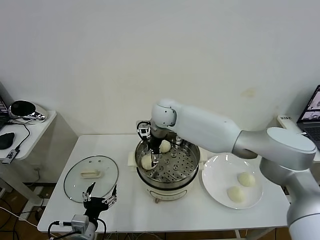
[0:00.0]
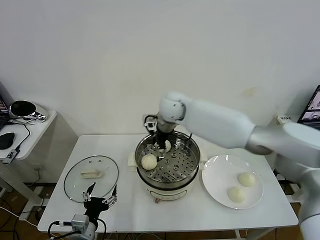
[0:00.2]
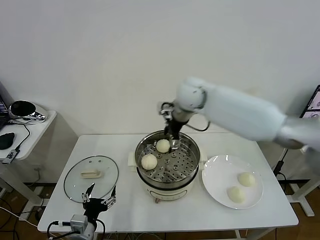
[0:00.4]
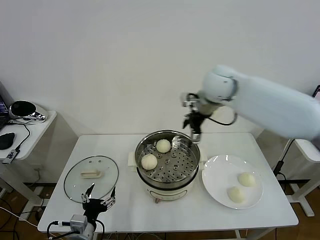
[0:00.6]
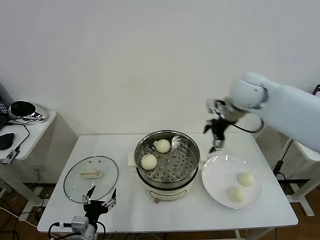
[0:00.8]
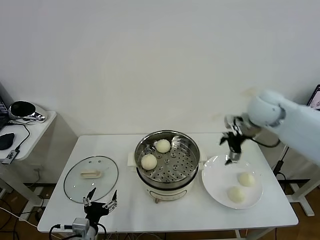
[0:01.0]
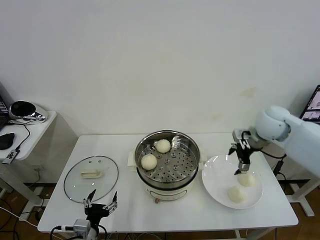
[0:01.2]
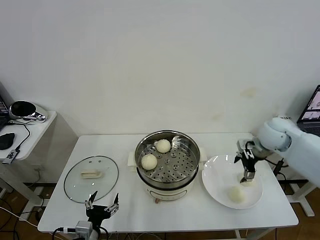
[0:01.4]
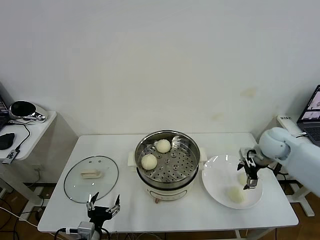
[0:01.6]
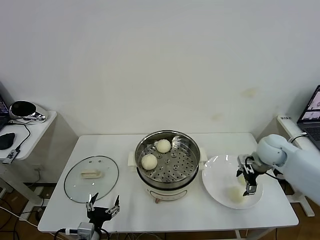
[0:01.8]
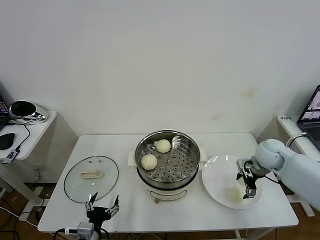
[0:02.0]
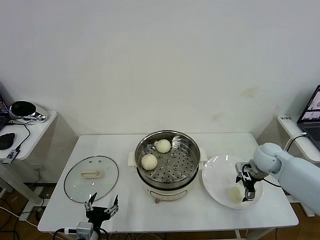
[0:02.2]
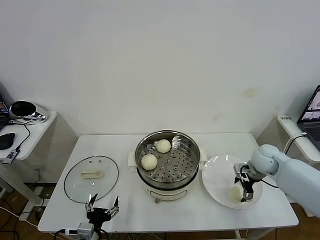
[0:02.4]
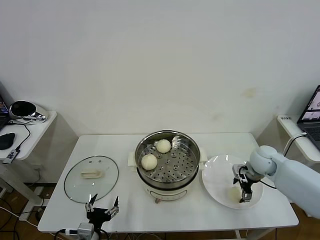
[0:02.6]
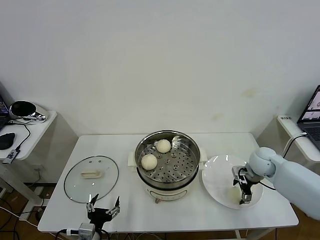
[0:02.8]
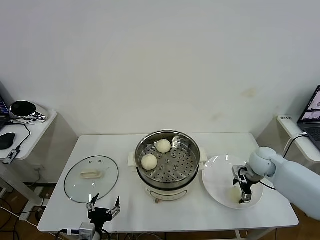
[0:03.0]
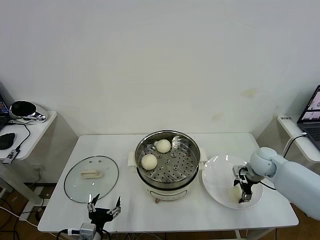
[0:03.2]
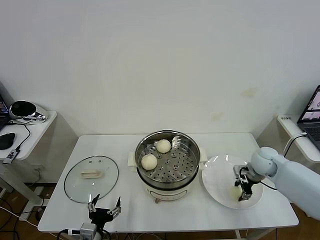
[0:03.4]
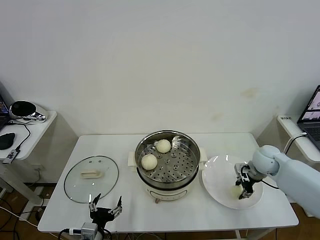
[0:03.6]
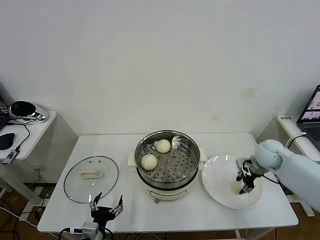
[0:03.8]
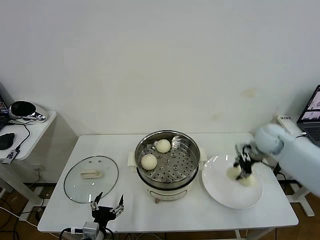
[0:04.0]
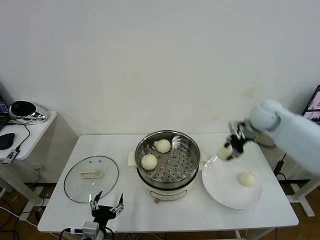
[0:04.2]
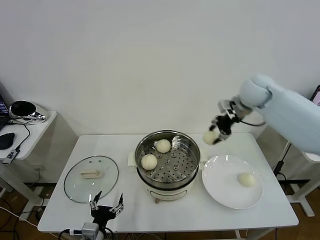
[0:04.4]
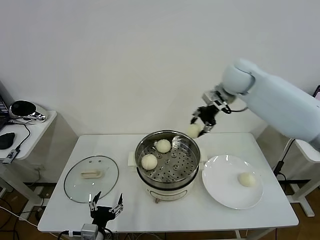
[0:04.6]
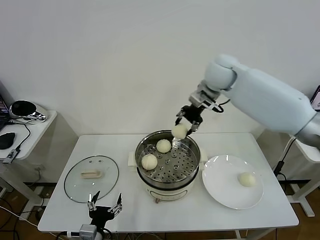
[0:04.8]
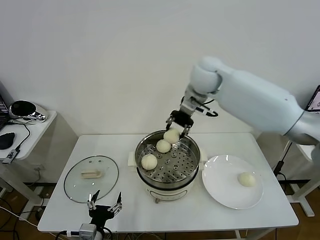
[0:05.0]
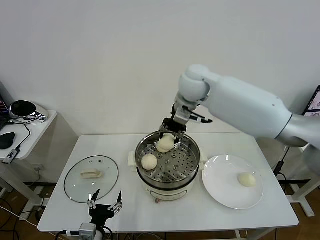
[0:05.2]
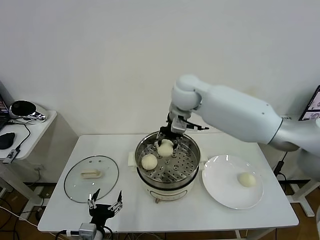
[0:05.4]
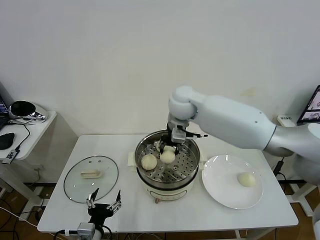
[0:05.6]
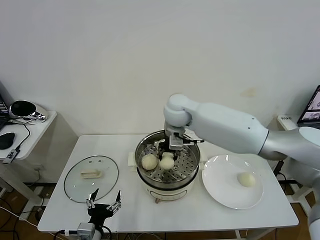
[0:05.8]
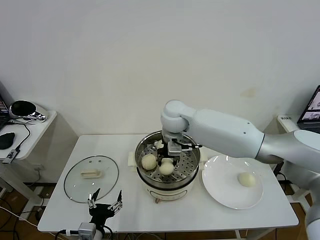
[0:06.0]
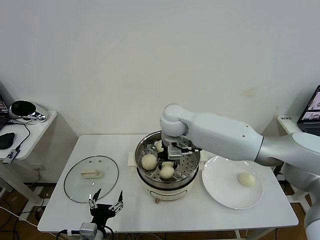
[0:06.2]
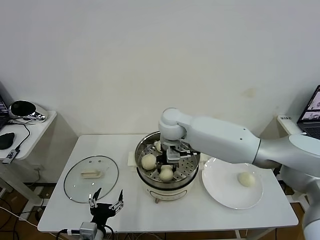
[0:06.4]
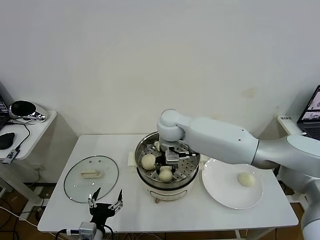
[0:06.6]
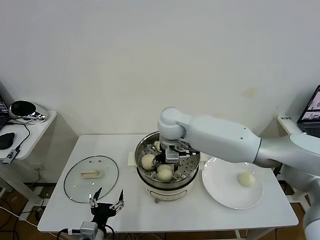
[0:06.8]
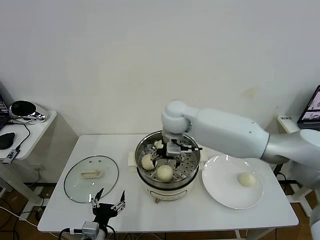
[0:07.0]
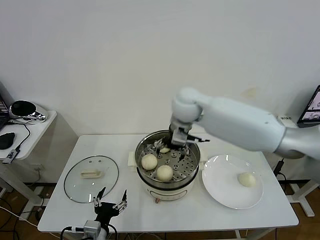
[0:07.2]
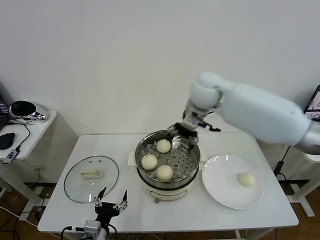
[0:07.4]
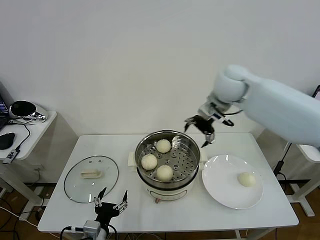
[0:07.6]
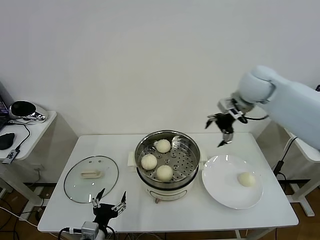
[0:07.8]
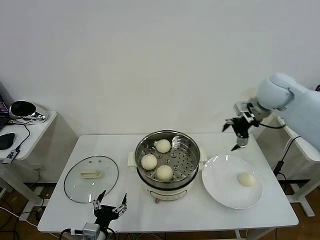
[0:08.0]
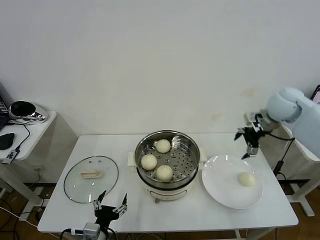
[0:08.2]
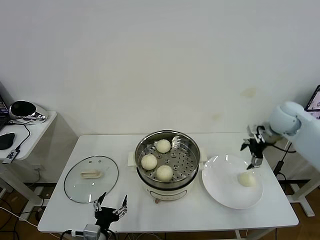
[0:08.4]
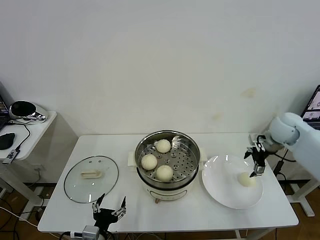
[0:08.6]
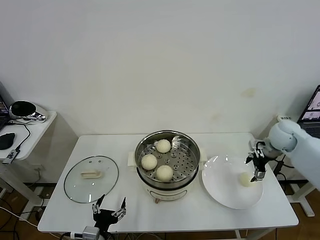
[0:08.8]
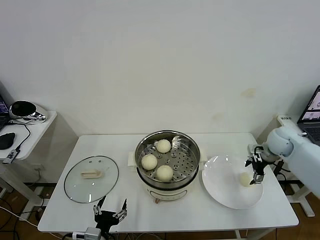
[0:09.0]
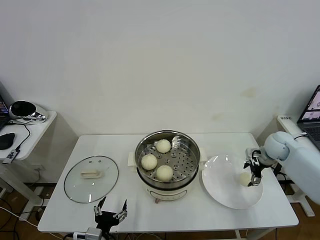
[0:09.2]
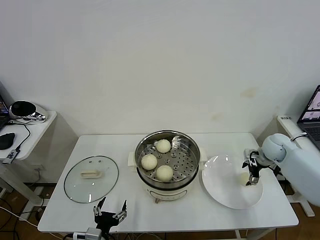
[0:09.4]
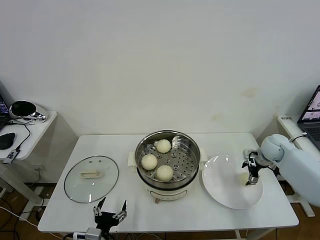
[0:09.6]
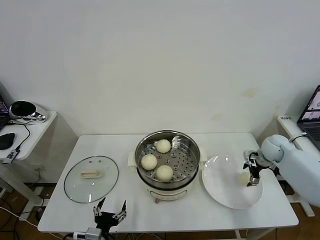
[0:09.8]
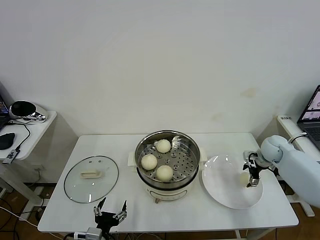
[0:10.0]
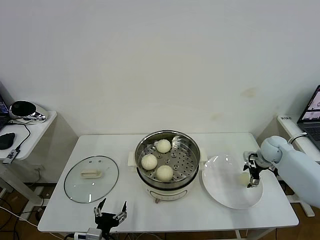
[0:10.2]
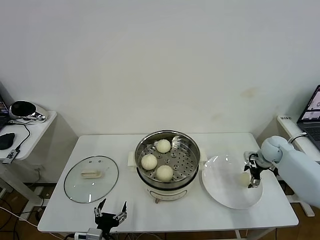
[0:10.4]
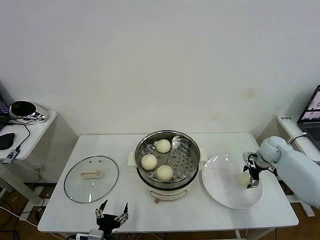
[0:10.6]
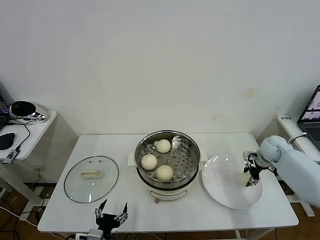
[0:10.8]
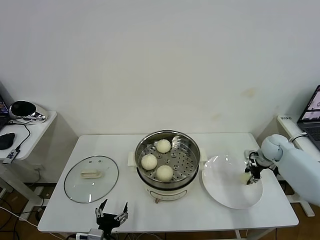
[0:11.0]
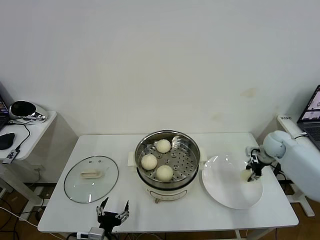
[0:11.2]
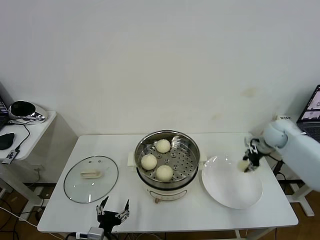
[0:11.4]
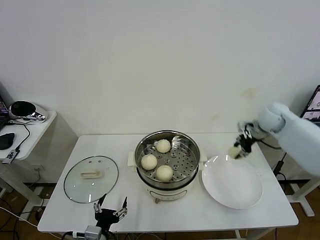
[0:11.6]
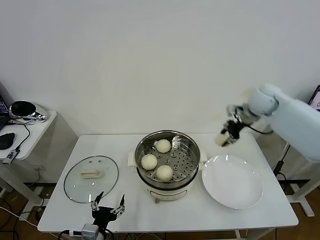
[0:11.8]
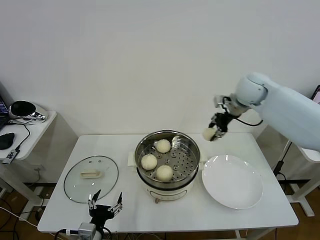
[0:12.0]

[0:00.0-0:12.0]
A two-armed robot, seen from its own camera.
Task of the whole recording: take steamed baozi put them in steamer then cover it.
Step, 0.2 to 3.6 s: Grasp the baozi in the plate with right gripper.
Step, 3.8 to 7.0 s: Place the baozi on the steamer with right gripper.
Step, 7.4 to 11.0 s: Grasp the baozi in the plate with right gripper.
0.0 to 1.6 s: The right gripper heads to the right, covering some 35 cm.
1.6 to 3.0 s: The right gripper moves downward, roughly 10 cm.
3.0 to 4.4 s: The right gripper goes about 30 cm upward, forward and to the left, and closes up.
4.4 to 6.0 s: The right gripper travels to the left by about 25 cm.
6.0 to 7.6 s: The right gripper shifts approximately 20 cm to the right and upward, and opens its fingers.
7.6 to 9.0 s: The right gripper shifts about 30 cm downward and to the right.
9.0 to 10.4 s: The right gripper is displaced downward by about 5 cm.
10.4 to 12.0 s: The right gripper moves upward and to the left, about 30 cm, and closes.

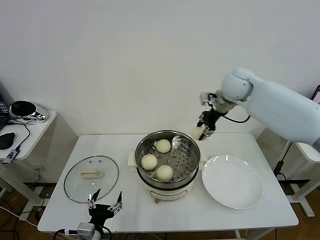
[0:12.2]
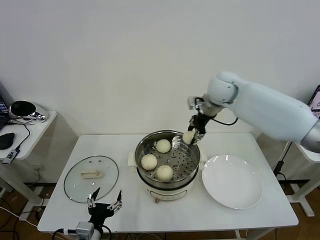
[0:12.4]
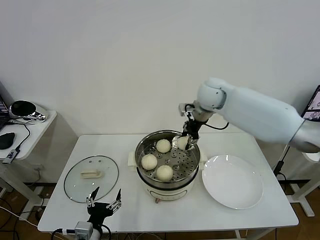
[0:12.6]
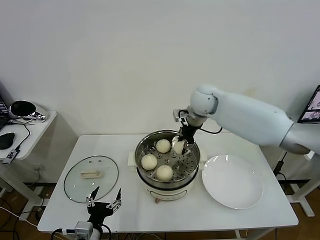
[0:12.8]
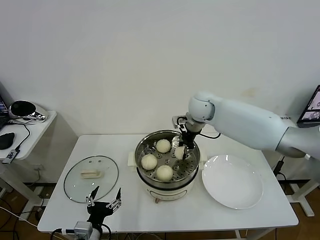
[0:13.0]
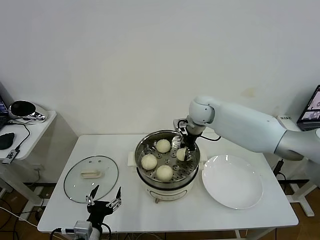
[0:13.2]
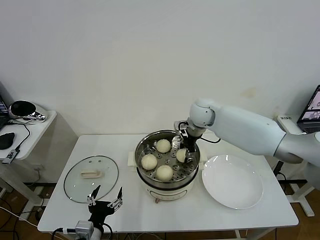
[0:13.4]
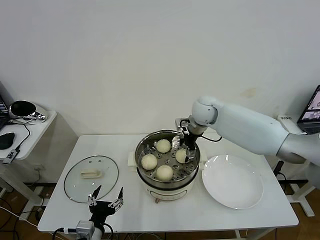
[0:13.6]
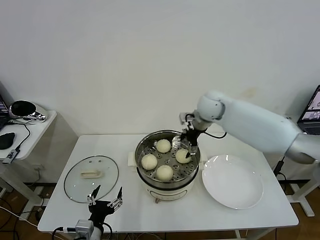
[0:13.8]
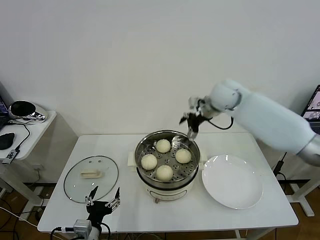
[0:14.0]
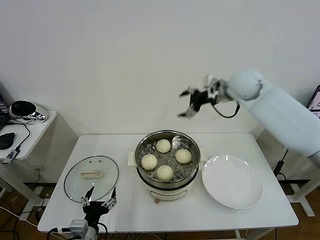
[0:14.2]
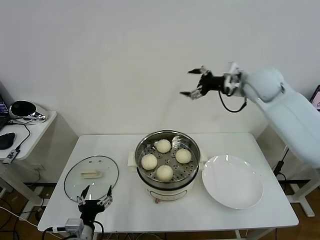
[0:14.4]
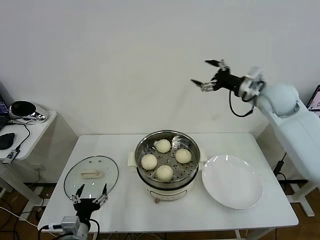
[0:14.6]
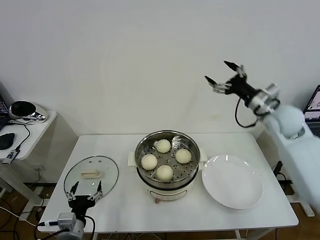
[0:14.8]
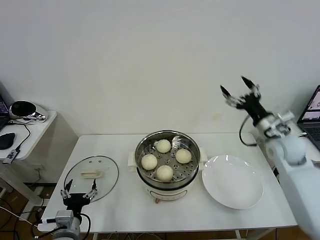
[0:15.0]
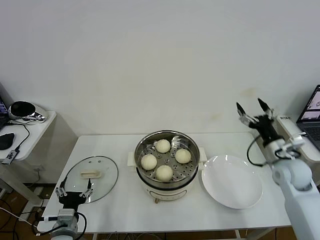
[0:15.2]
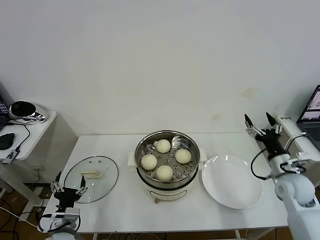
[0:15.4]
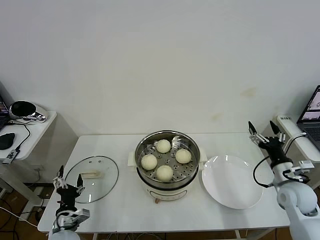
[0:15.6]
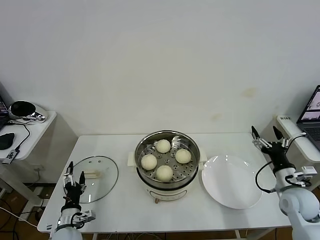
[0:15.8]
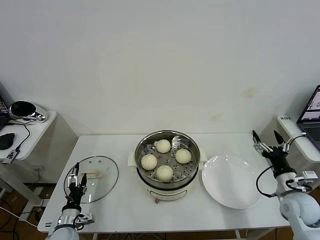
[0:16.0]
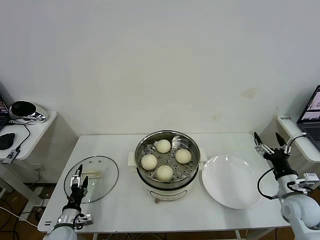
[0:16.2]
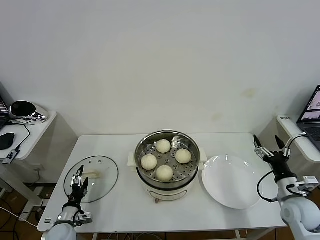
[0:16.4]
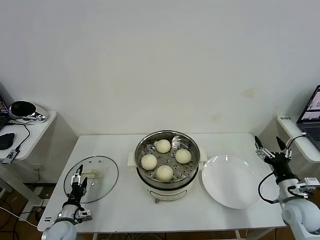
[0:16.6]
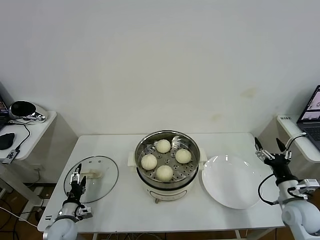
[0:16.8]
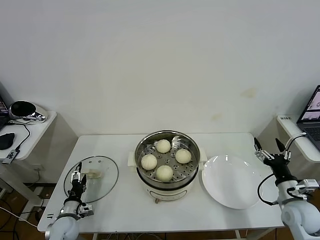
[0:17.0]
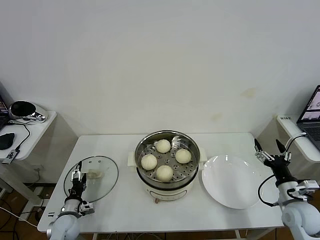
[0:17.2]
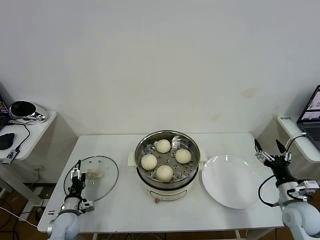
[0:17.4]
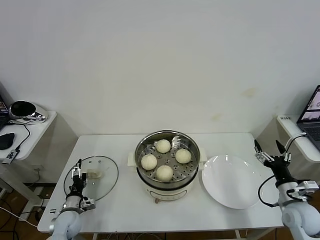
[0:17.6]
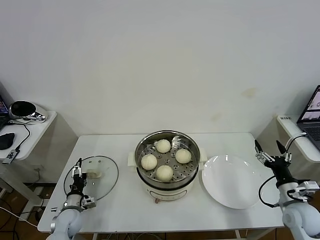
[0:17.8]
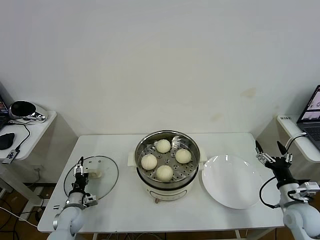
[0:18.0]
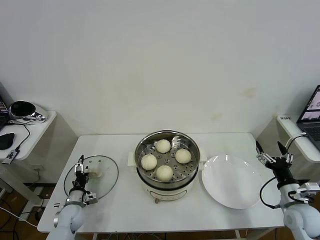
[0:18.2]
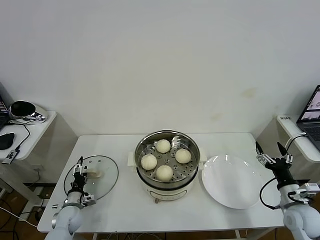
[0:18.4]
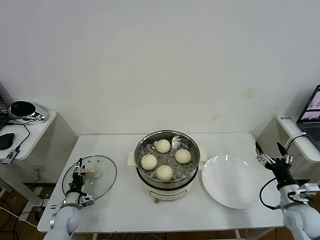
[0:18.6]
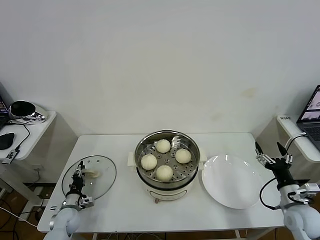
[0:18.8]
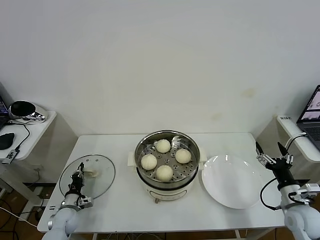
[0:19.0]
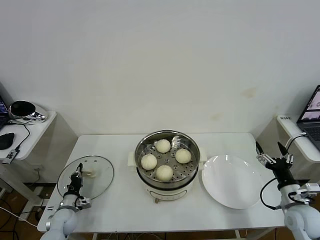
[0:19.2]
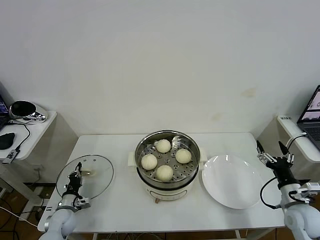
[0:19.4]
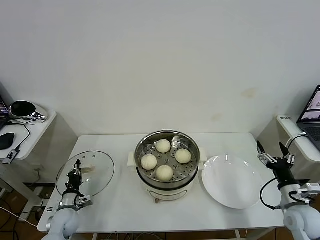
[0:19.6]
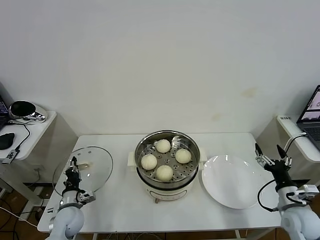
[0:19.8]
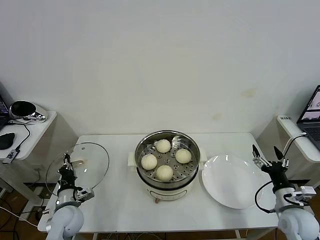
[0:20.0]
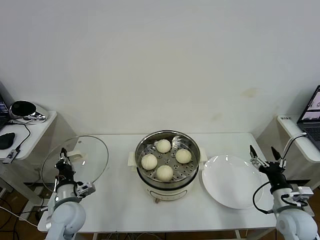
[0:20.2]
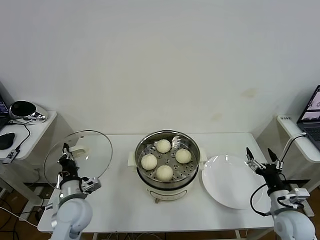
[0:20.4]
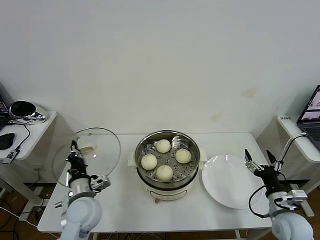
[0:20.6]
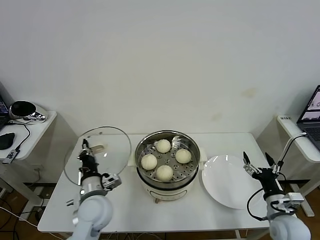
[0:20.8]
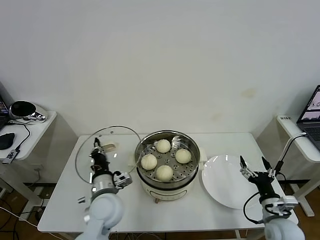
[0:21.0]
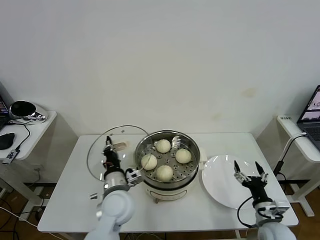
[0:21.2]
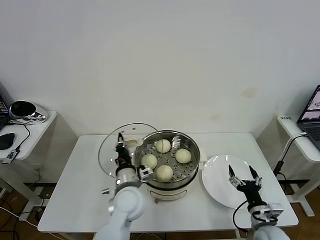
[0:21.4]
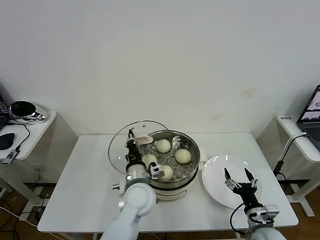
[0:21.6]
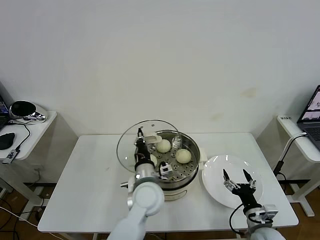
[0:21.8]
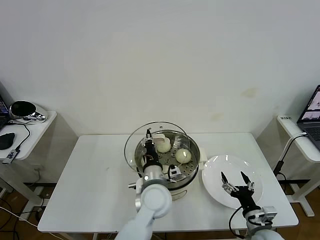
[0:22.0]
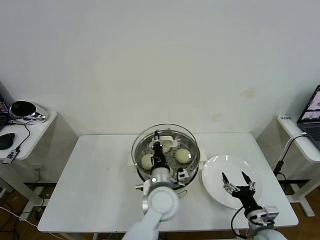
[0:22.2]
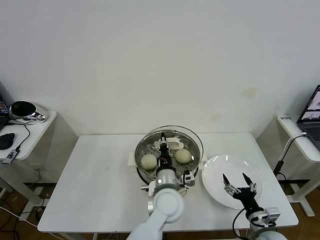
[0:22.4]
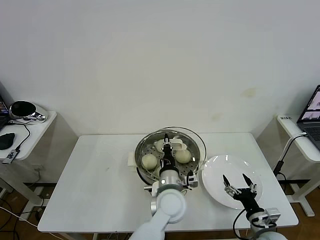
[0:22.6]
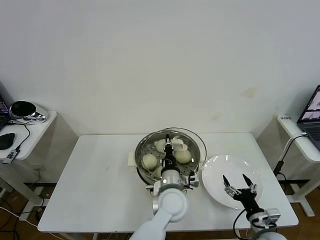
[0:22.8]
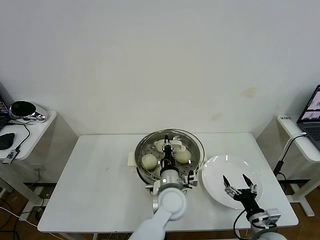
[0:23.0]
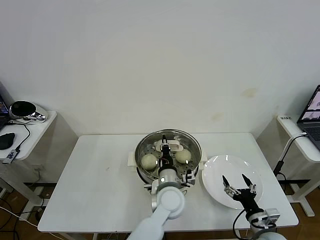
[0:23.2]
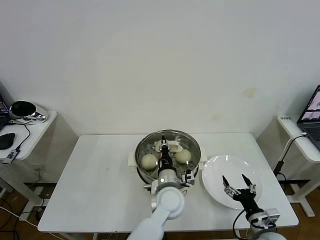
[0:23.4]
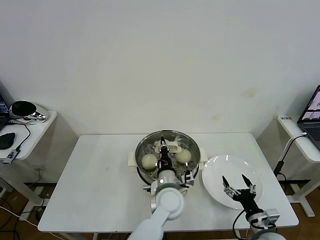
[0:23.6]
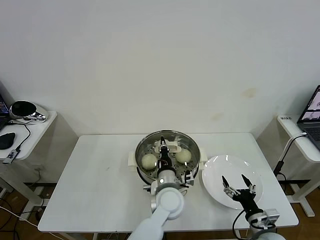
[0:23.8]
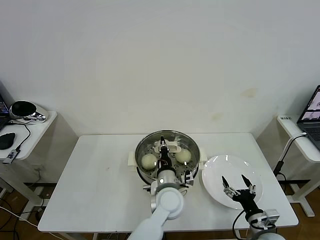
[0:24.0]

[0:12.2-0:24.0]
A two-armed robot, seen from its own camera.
Task of the whole recording: take steamed baozi put them in steamer then cover it.
Step, 12.2 to 13.8 s: Place the baozi on the steamer with right gripper.
Step, 14.0 to 19.4 s: Grasp the pot lid with left gripper.
12.2 to 13.6 s: The right gripper shifts approximately 10 cm downward and to the left, and opens its fingers.
13.6 to 15.2 s: The right gripper shifts approximately 30 cm to the right and backward; the left gripper goes some 5 cm to the left.
15.2 to 16.6 s: The right gripper heads backward and downward, covering some 15 cm. The left gripper shifts roughly 15 cm downward, to the left and forward.
16.6 to 18.2 s: The left gripper travels forward by roughly 5 cm.
18.2 to 19.6 s: The left gripper closes.
19.6 to 21.0 s: The right gripper shifts roughly 5 cm to the left. Meanwhile the left gripper moves to the right and upward, roughly 25 cm.
21.0 to 22.6 s: The left gripper goes some 20 cm to the right. Meanwhile the right gripper ends up roughly 5 cm from where it was.
22.6 to 24.0 s: There are only small adjustments of the grippers.
